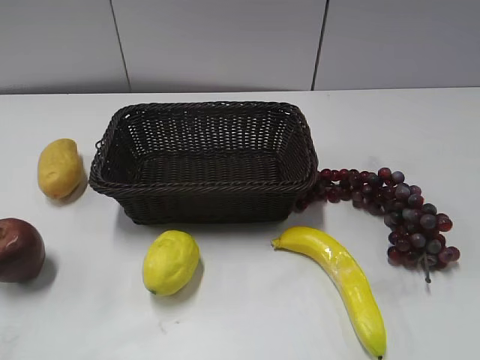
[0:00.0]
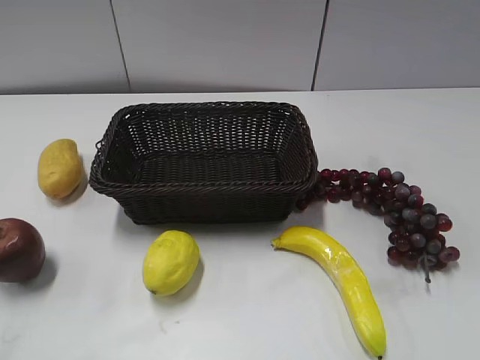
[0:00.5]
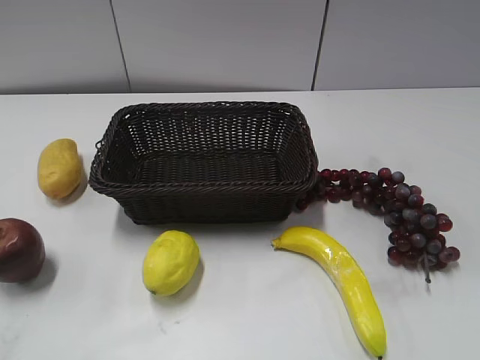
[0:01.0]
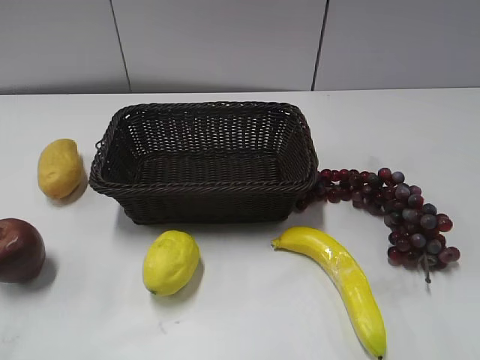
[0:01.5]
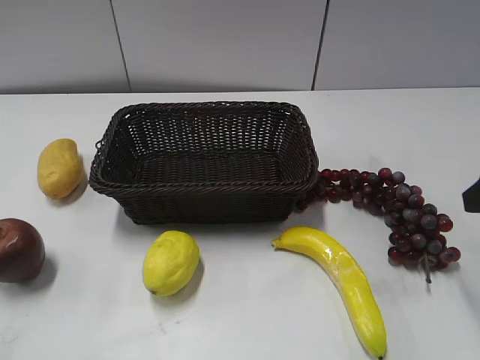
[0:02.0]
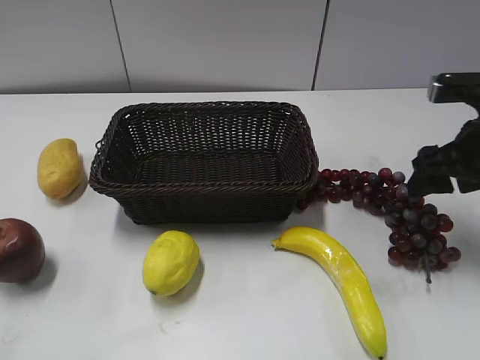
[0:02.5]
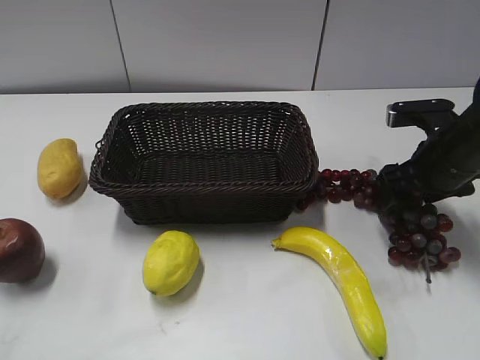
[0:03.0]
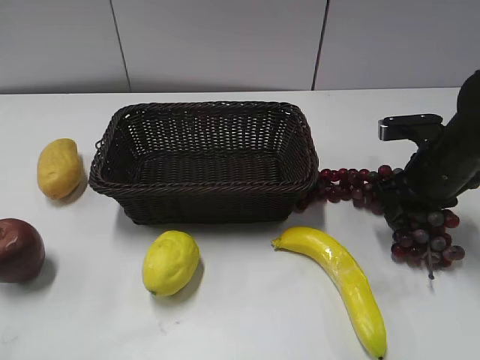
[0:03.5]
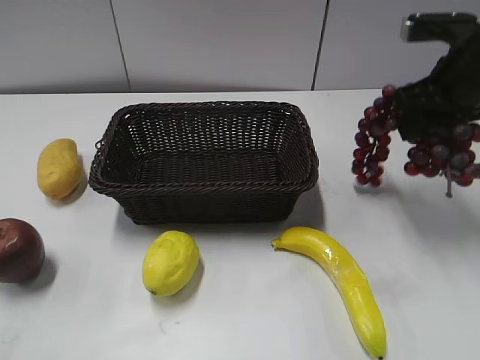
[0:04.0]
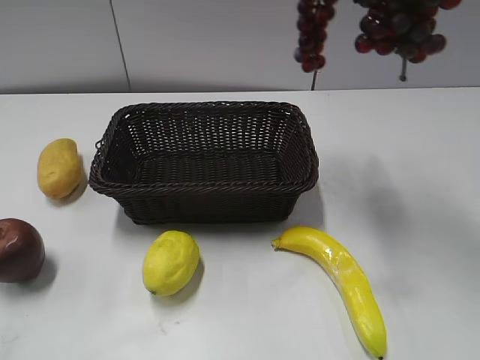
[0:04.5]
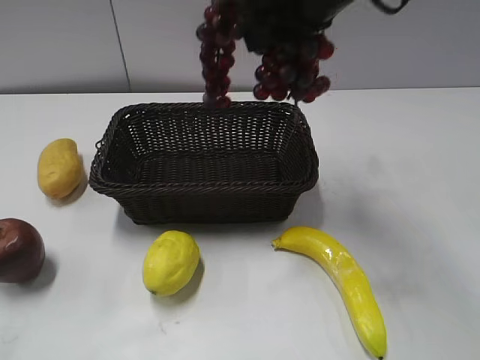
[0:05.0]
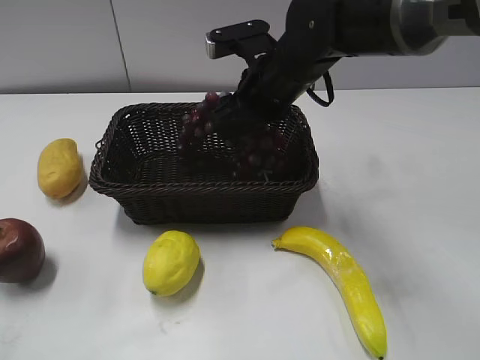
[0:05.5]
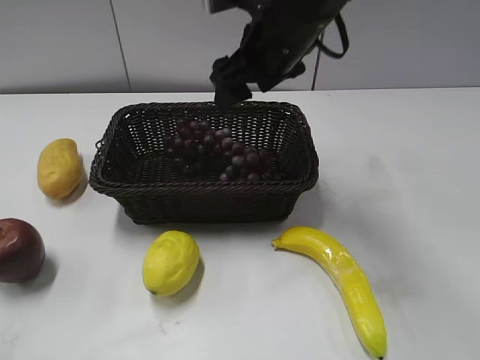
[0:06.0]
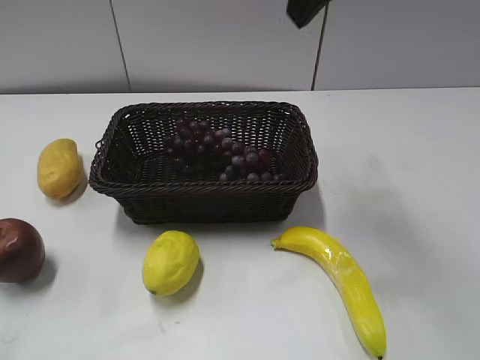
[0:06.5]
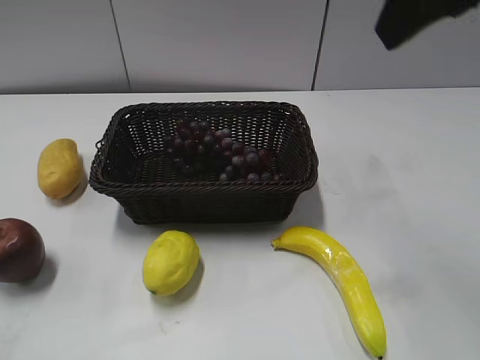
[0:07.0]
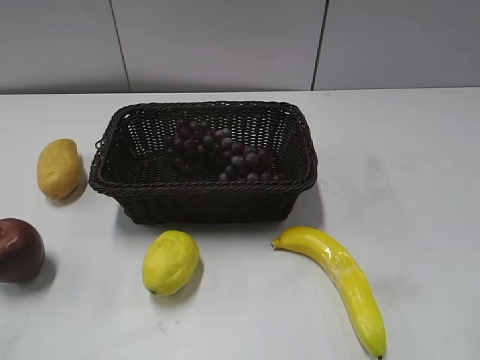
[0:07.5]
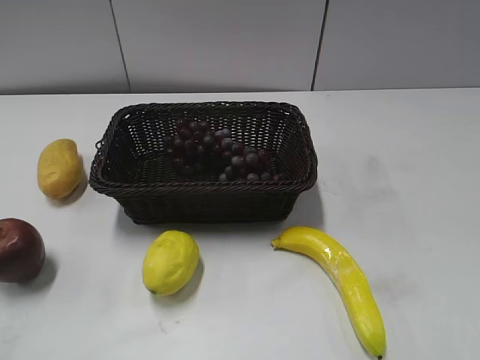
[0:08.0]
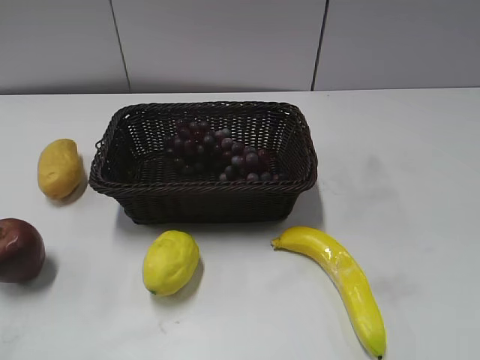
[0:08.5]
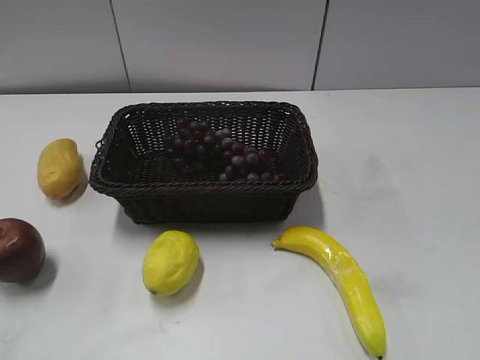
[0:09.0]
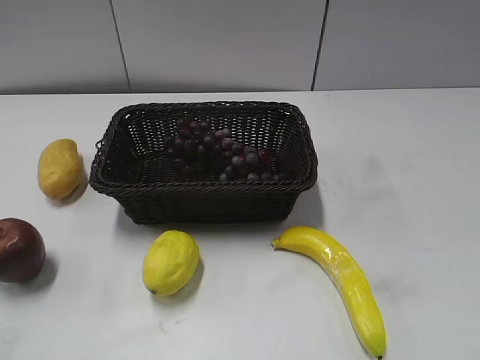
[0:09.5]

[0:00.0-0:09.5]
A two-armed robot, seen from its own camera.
Step, 0:02.0 to 0:03.5: Grasp the grape with right gripper.
Step, 0:04.0 to 0:05.5: Place the grape in the basket with right gripper.
0:02.0 to 0:04.0: The right gripper moves forward, some 15 cm, and closes.
0:04.0 to 0:05.5: The right gripper travels to the left by roughly 20 cm, and opens up.
0:05.5 to 0:07.5: The right gripper shifts some 35 cm backward, to the right and upward.
